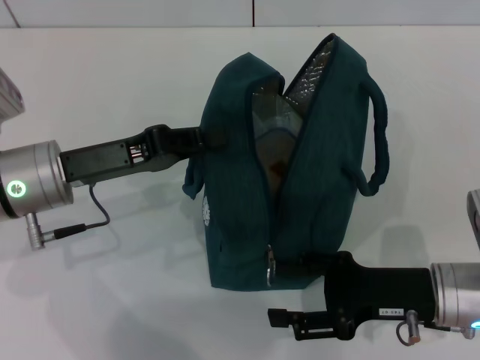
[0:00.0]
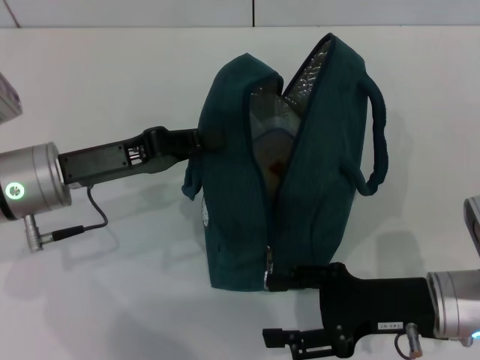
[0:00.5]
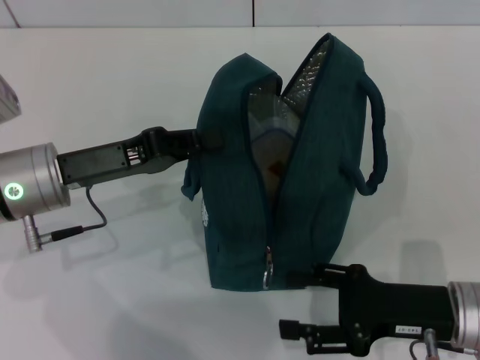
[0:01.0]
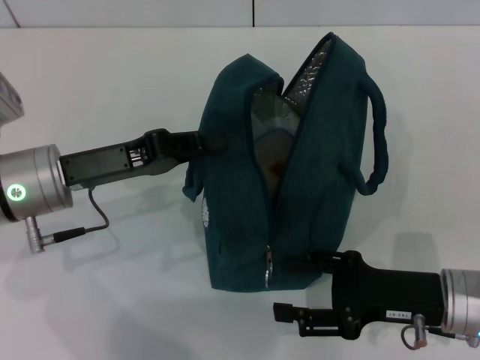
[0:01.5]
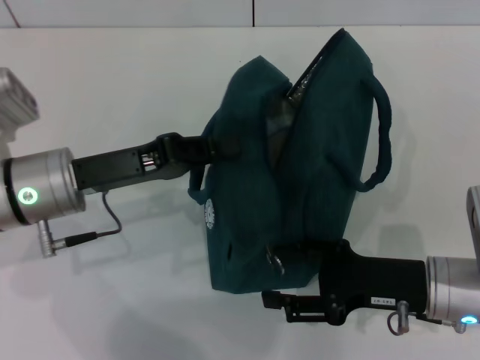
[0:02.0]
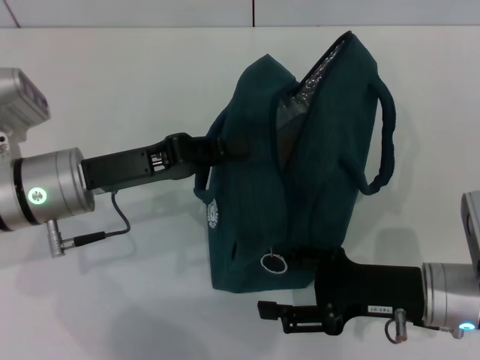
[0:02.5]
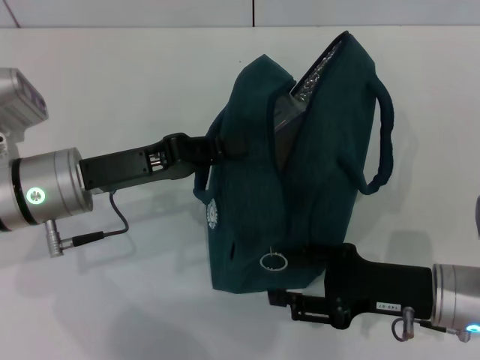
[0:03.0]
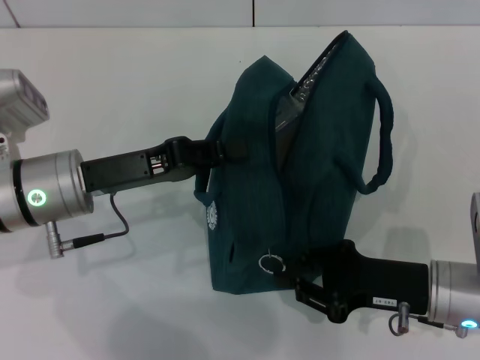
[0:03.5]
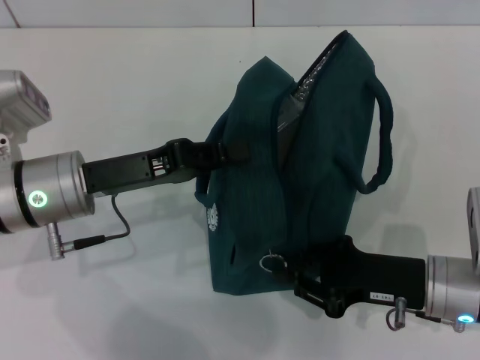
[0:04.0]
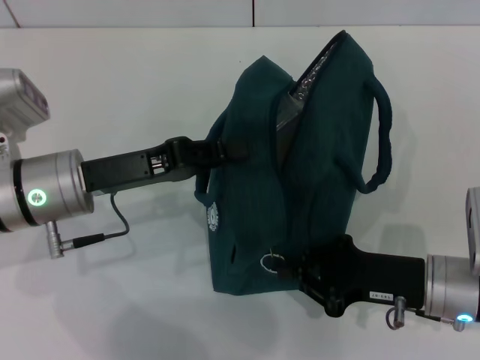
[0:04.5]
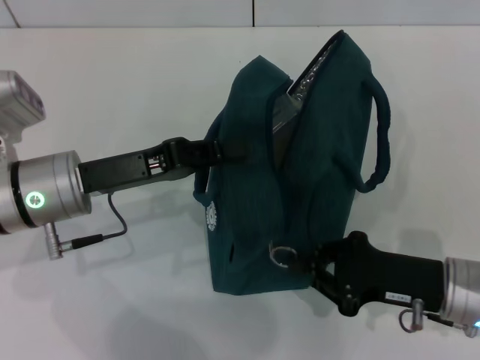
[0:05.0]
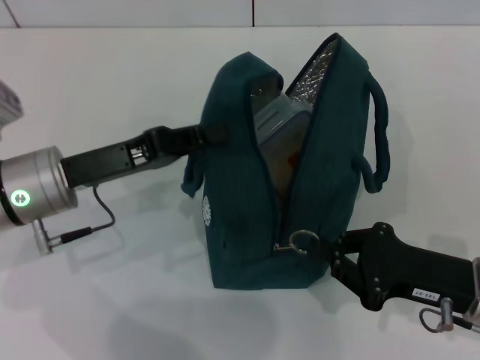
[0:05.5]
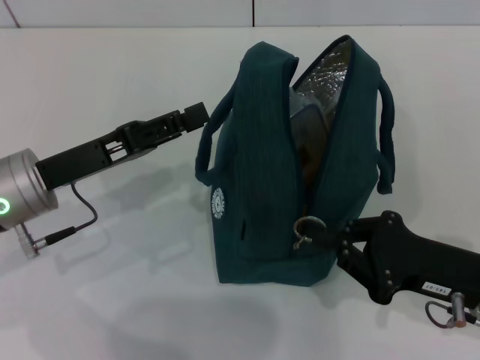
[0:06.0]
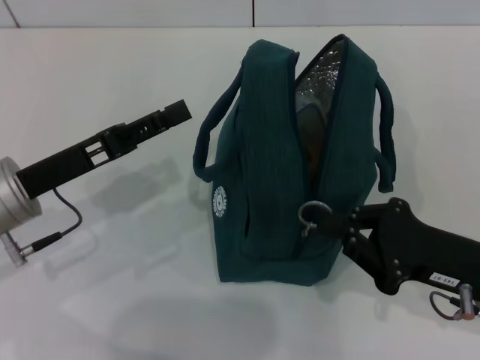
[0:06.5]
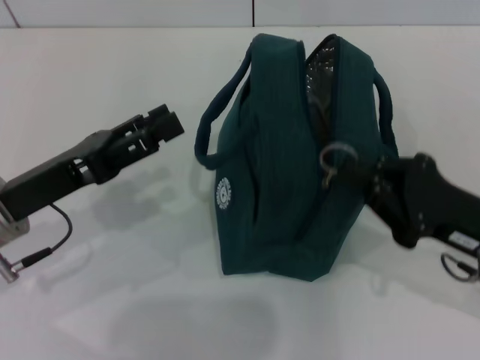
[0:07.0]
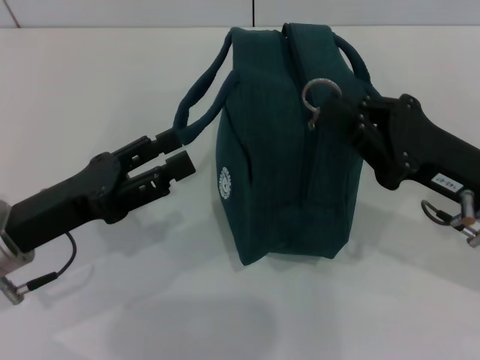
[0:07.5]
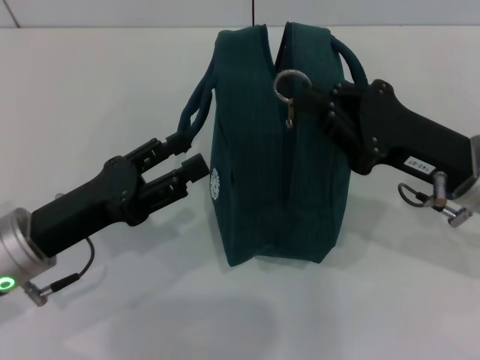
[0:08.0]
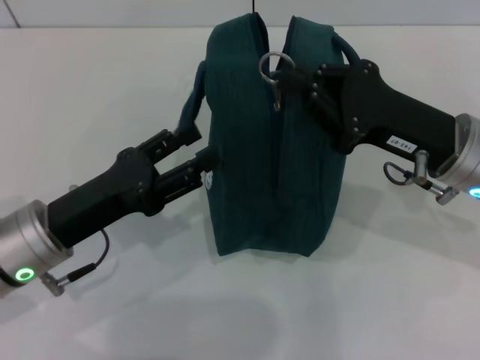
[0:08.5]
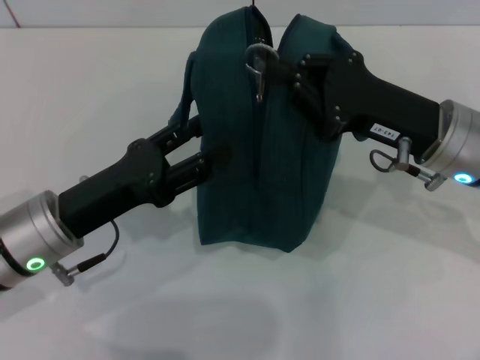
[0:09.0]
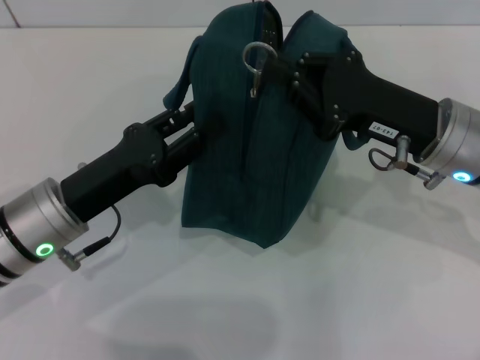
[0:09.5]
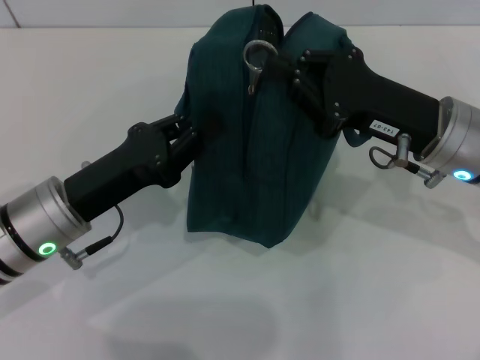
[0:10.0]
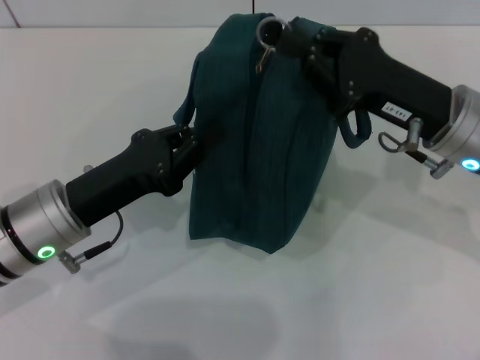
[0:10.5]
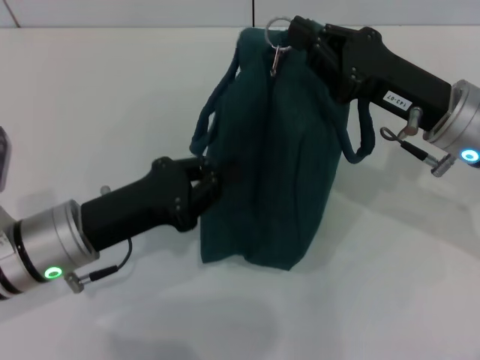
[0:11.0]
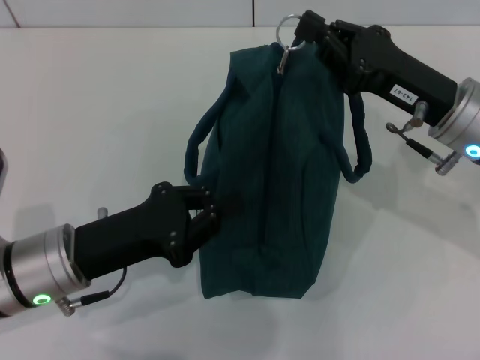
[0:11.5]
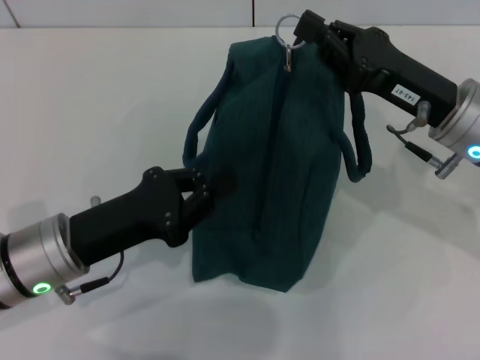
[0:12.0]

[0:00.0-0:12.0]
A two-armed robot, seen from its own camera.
Step, 0:00.0 to 0:07.0: Hold the lunch bag with your left hand.
0:00.0 to 0:02.0: The grippers make only small movements.
0:02.0 to 0:04.0: The right gripper closes.
0:06.0 to 0:08.0: The left gripper moves about 5 cm, and opens up. The right gripper shifts about 10 cm forward and upward.
0:08.0 to 0:10.0: The left gripper closes its fingers.

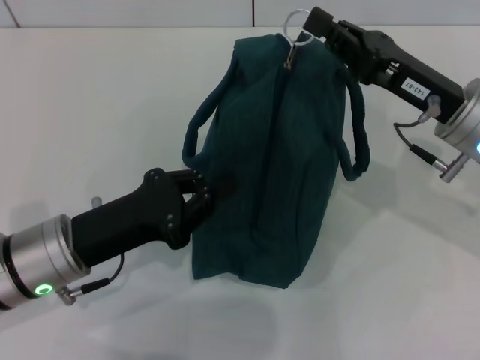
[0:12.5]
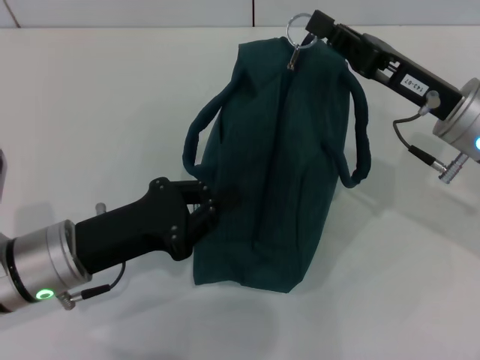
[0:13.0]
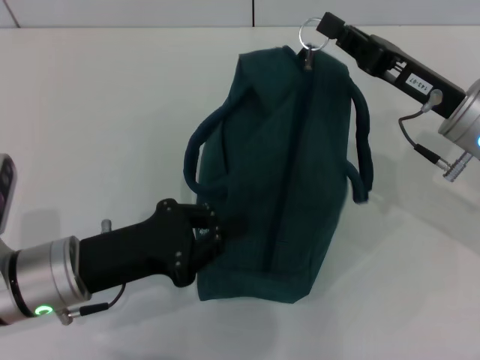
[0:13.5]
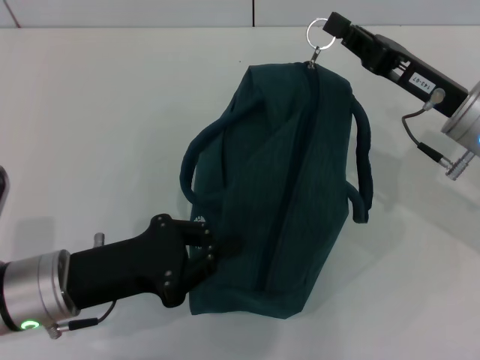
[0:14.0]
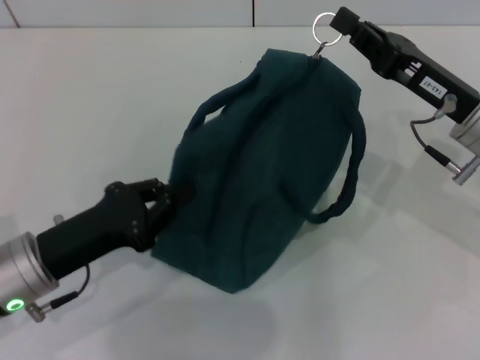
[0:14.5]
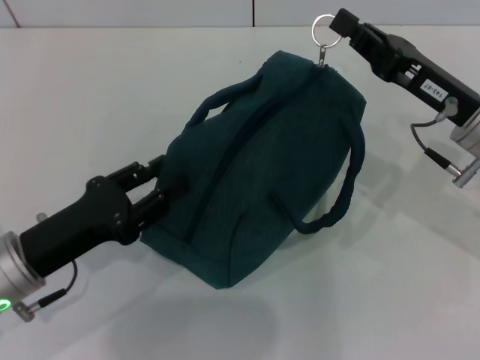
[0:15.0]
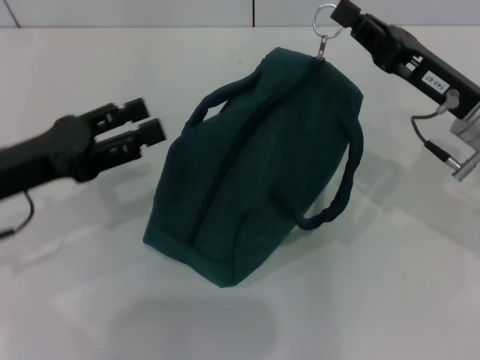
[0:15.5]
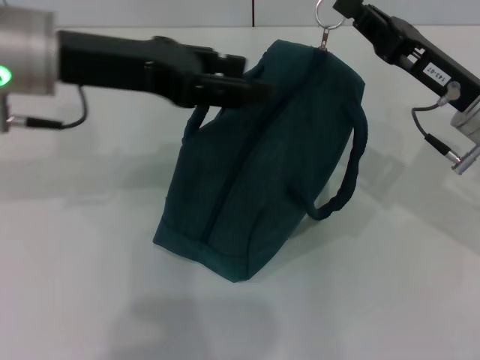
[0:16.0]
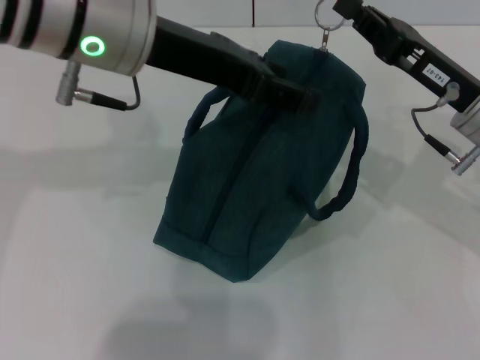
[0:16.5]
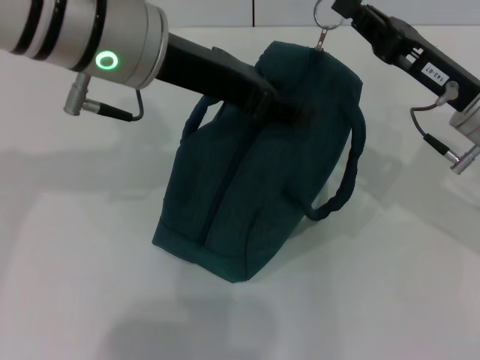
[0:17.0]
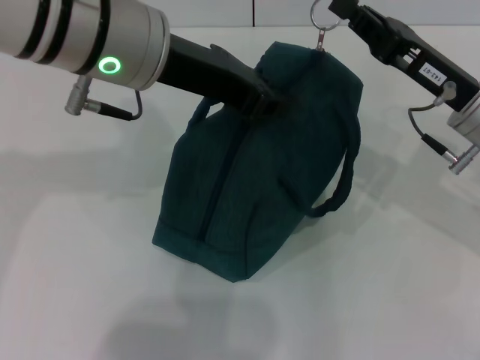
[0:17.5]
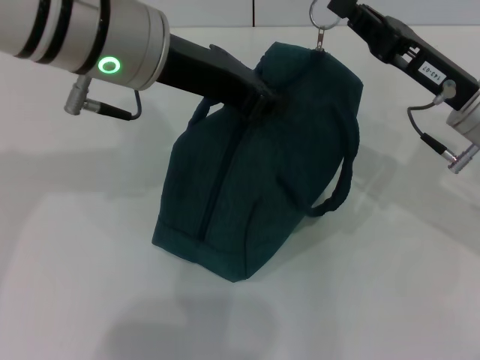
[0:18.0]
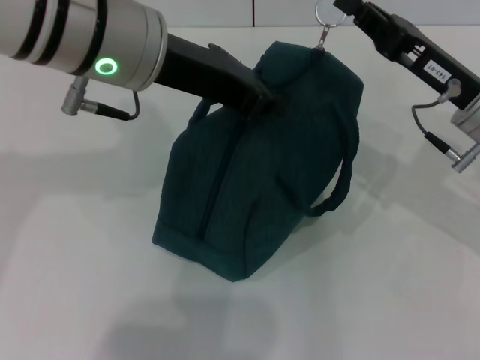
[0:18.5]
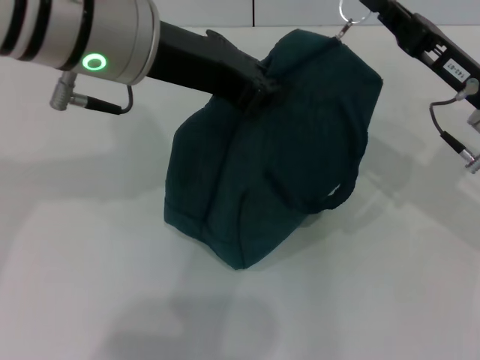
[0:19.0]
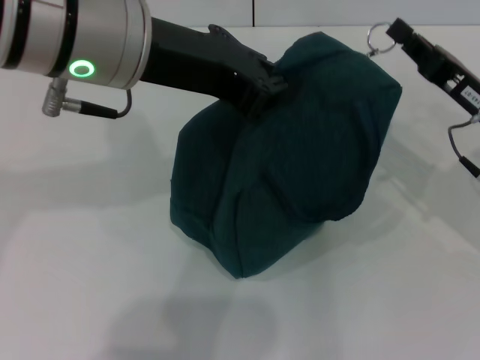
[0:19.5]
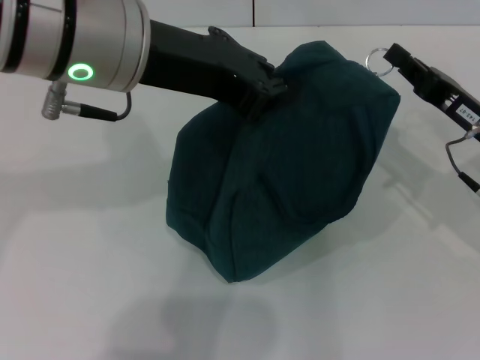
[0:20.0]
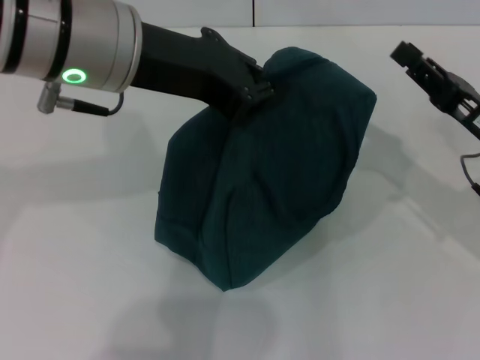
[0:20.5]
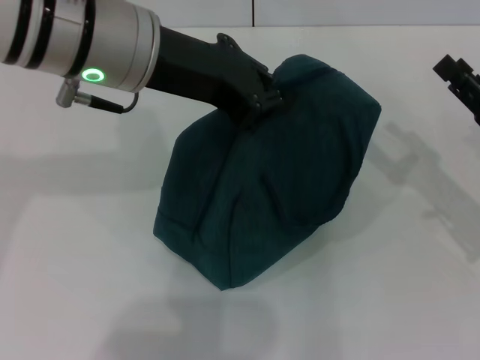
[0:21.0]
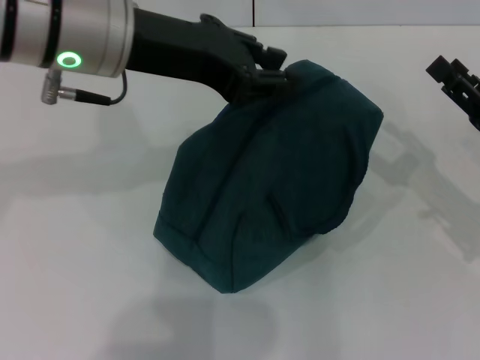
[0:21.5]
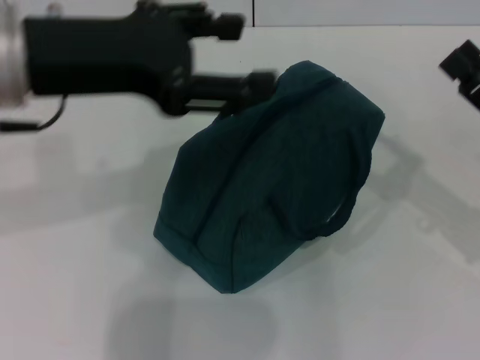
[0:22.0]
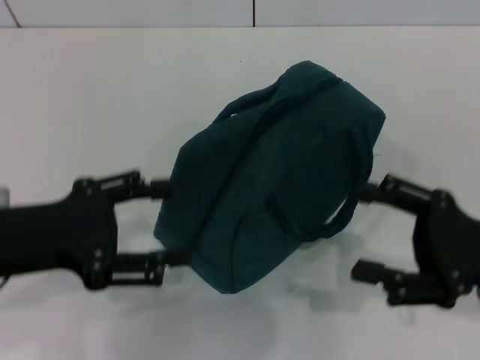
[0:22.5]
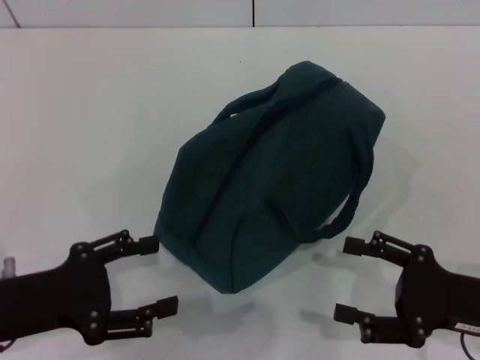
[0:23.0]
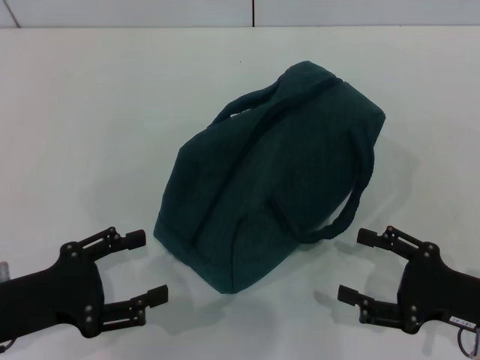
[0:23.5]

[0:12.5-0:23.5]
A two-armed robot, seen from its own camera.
Step, 0:12.5 to 0:20.0: Zip up the lunch bag with your right hand.
Step, 0:20.5 to 0:21.5: Hold the lunch bag with your left hand.
0:12.5 to 0:14.5: There are only small adjustments of the grippers.
0:14.5 to 0:16.0: The left gripper heads upward and forward, covering about 20 cm, and opens up.
0:16.0 to 0:18.0: The left gripper travels to the right by about 5 cm, and closes its fingers.
0:18.0 to 0:20.0: The right gripper ends up about 5 cm from where it was.
0:20.0 to 0:21.5: The right gripper moves about 5 cm, and opens up.
0:21.5 to 0:23.5: The right gripper travels backward by some 10 cm. The left gripper travels downward, to the left and backward by approximately 30 cm, and opens.

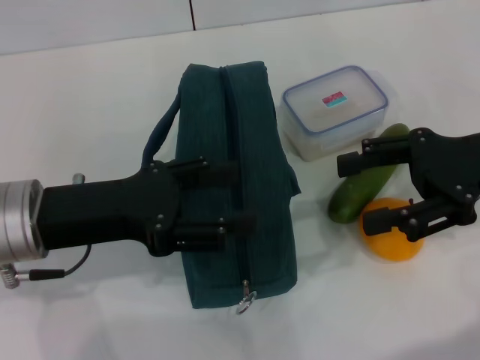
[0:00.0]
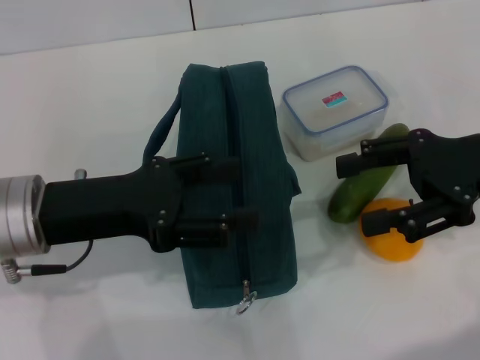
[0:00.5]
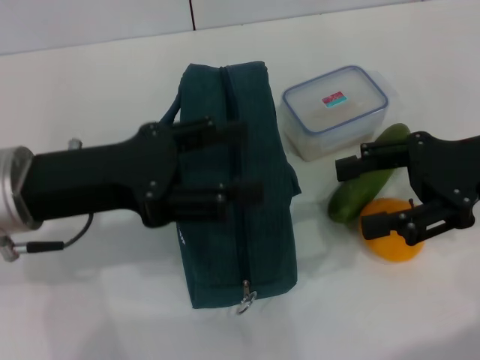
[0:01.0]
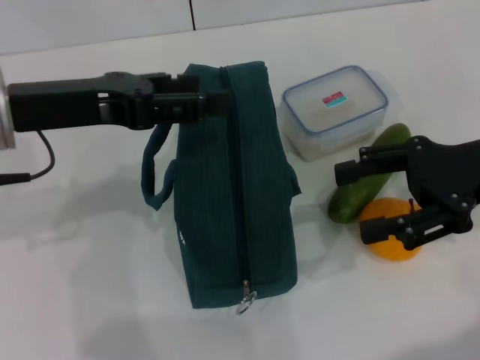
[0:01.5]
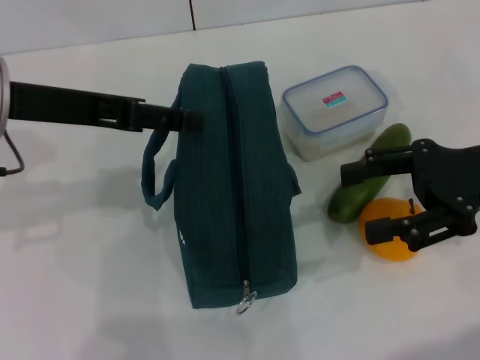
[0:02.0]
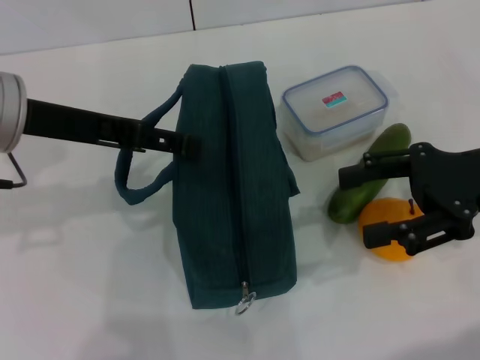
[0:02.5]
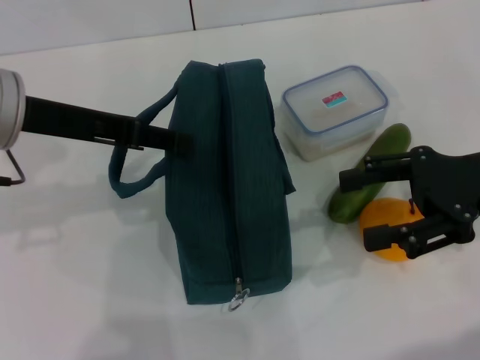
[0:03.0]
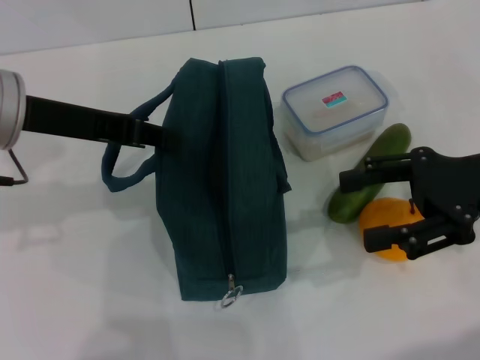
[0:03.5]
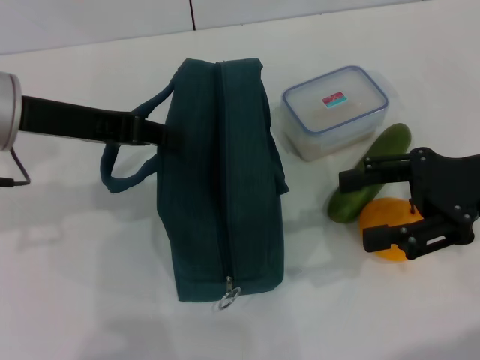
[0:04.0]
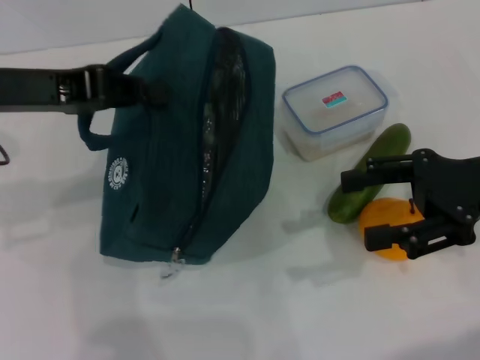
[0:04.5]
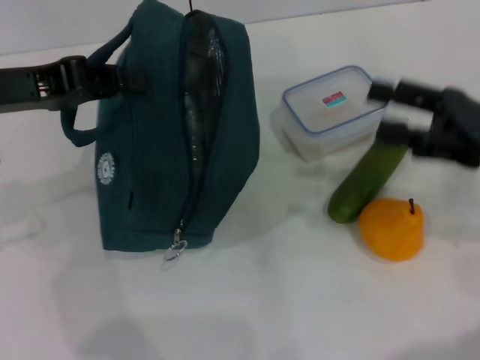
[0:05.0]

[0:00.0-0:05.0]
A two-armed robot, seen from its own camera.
Step, 0:00.0 to 0:04.5: Hold the lunch bag with your left hand.
0:00.0 to 0:02.5: The left gripper goes approximately 10 cm upward and forward.
0:02.5 to 0:05.0: The left gripper travels to the left by about 5 cm, and closes.
